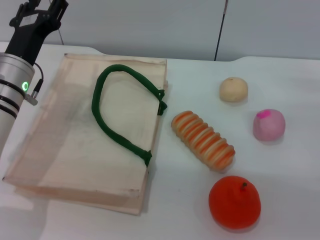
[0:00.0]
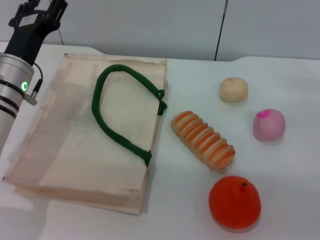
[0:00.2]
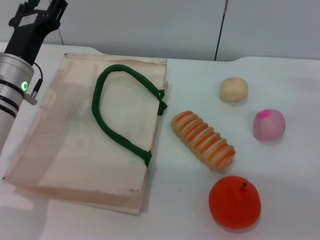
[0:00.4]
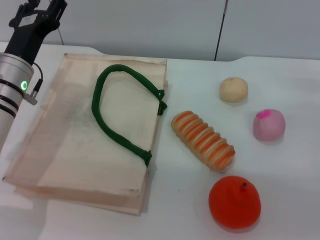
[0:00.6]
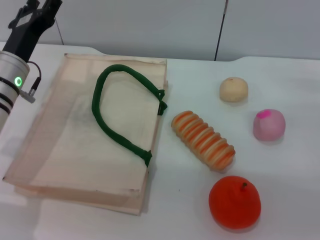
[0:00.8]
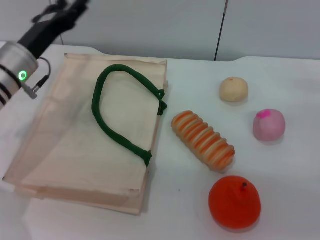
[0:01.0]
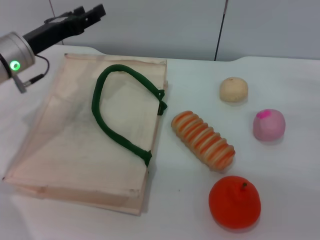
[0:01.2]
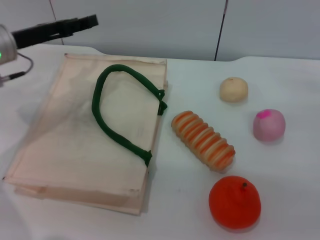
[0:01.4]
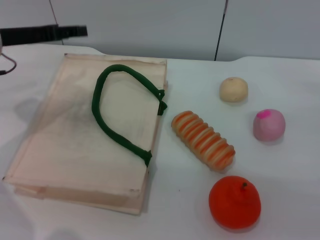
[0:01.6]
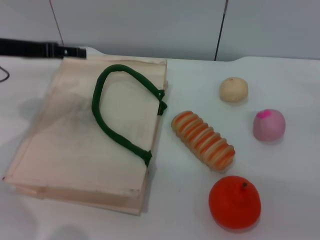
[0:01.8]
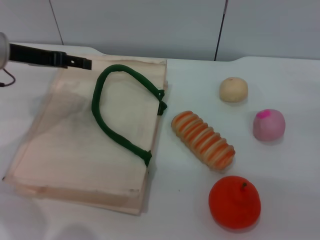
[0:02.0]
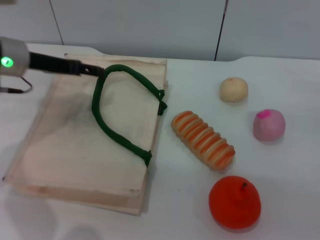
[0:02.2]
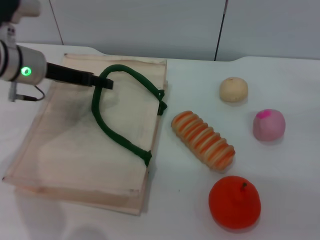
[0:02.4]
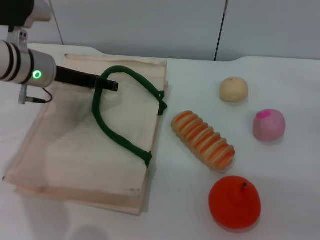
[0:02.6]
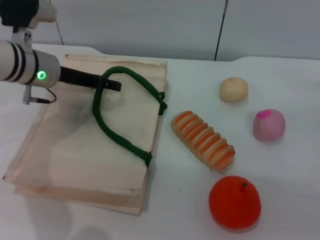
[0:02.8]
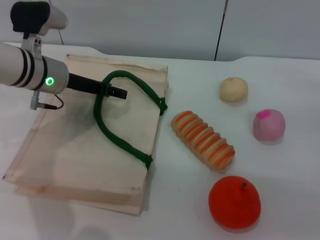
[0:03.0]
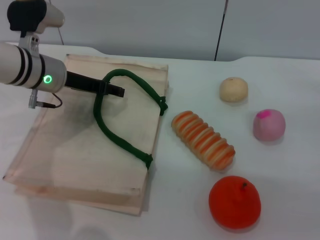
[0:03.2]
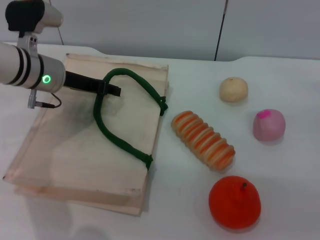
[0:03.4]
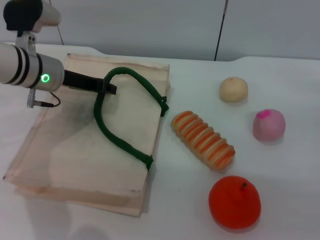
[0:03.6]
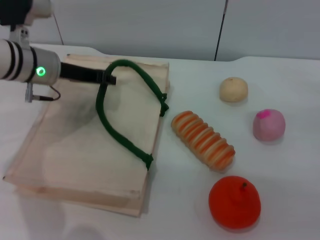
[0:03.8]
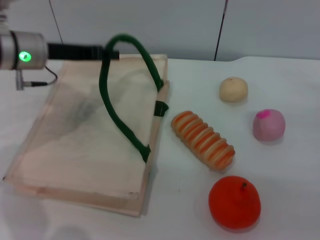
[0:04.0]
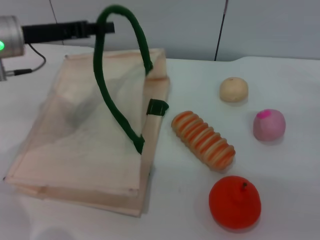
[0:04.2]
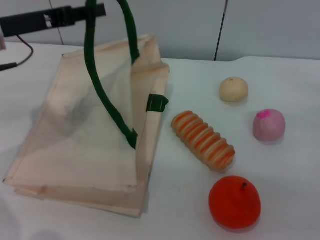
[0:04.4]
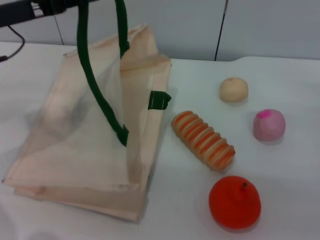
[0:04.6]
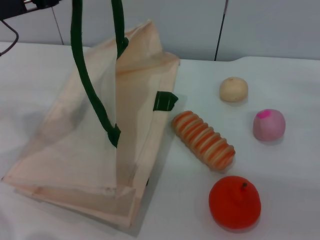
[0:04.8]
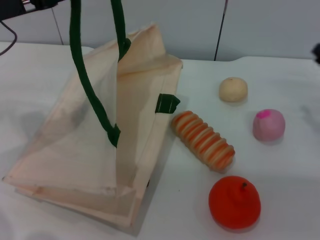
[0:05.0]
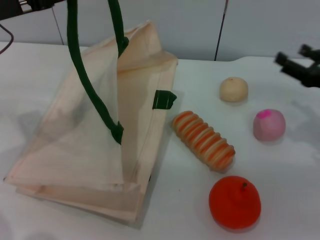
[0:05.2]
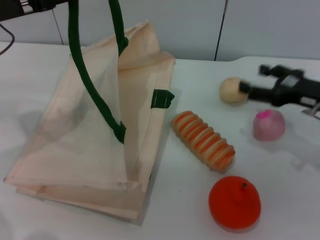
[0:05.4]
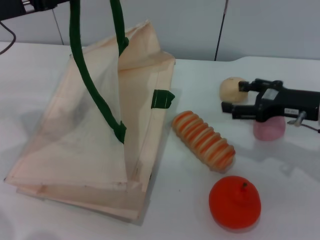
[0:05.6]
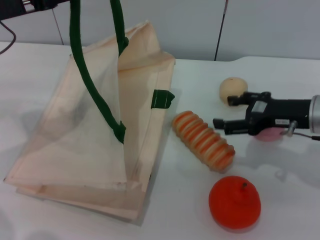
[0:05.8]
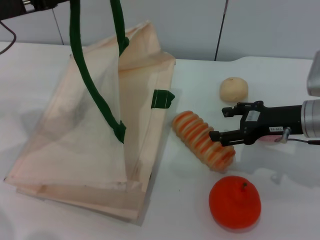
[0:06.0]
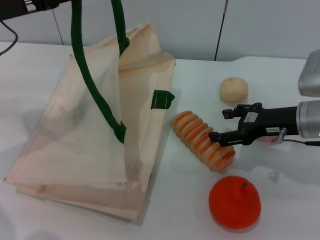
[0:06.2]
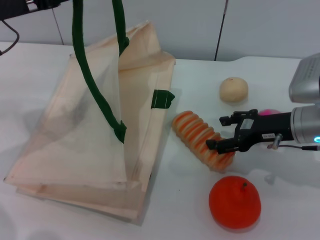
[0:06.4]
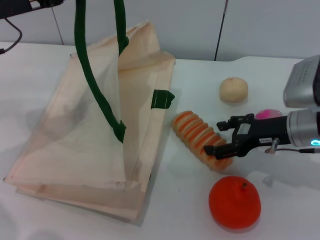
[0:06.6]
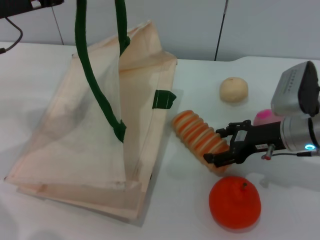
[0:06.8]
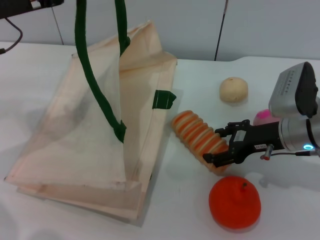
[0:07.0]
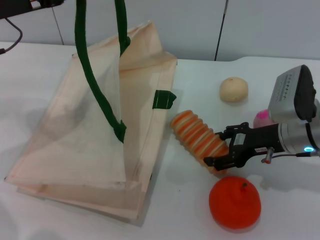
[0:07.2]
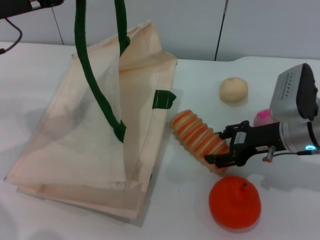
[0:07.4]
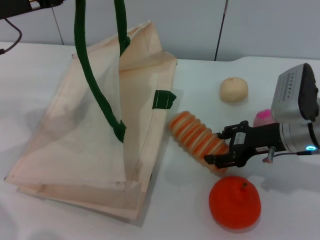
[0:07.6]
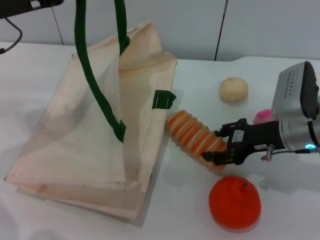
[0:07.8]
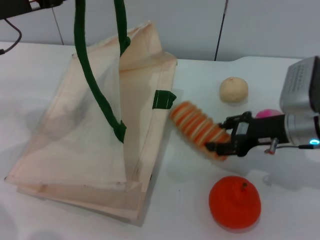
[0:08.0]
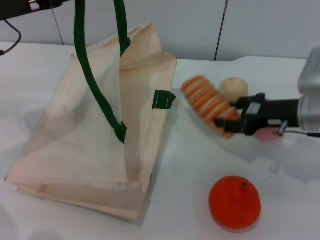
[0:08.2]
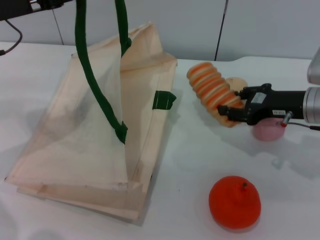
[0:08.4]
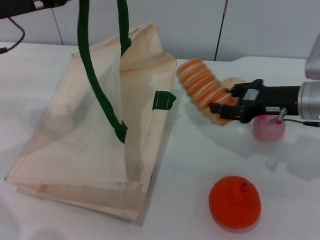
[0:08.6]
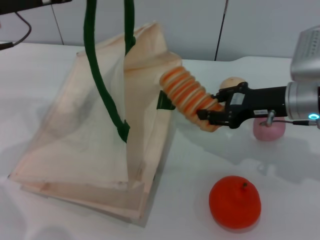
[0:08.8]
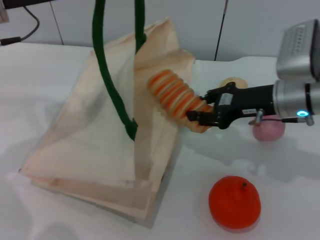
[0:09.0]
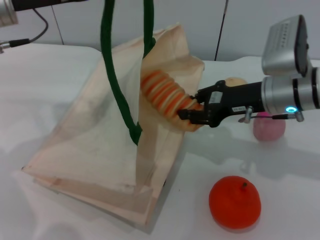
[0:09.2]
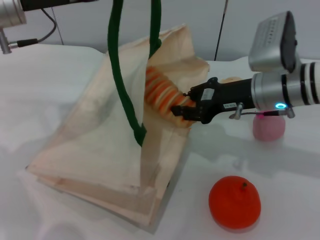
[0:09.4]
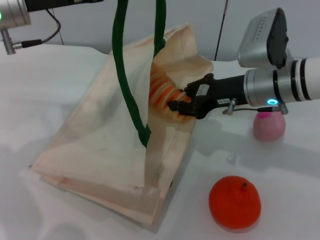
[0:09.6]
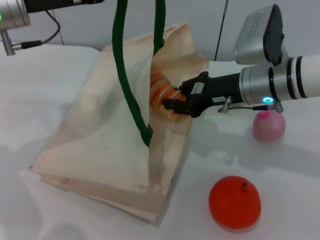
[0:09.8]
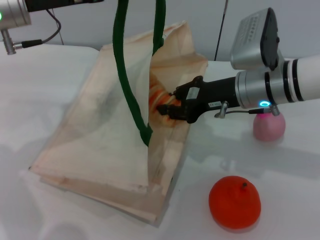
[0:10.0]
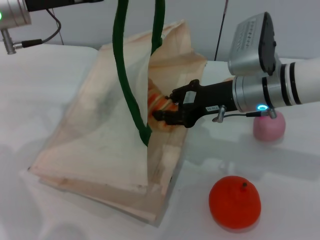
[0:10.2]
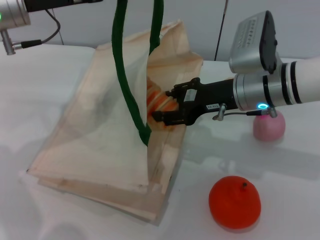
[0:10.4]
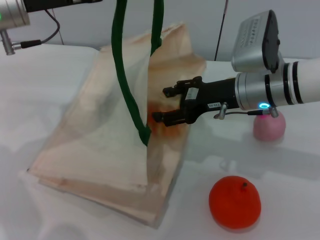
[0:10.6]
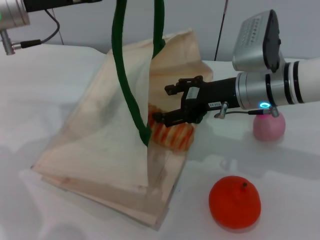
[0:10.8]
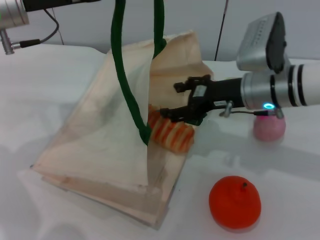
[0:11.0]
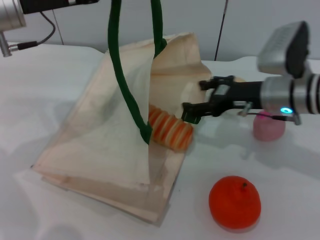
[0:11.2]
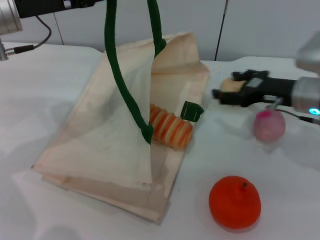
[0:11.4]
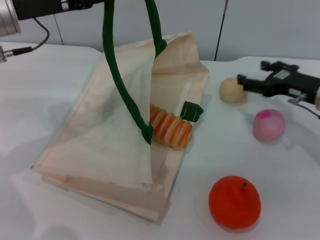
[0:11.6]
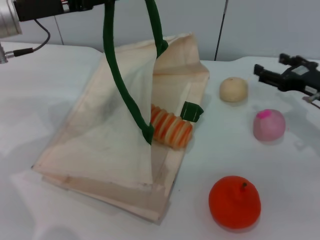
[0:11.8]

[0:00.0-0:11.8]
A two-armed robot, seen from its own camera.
Task of the whole recording: pick up the bread from the table and place it in the white handbag.
Step, 0:00.0 to 0:05.0: Lift the woven bag with the left gripper to open it.
Step, 0:05.2 to 0:08.0: Pick up the bread with the right gripper.
Step, 0:08.2 to 0:11.0: Place the bread into the woven bag with the right gripper.
0:00.0 to 0:01.4: The left gripper heads upward, covering roughly 5 cm.
0:01.4 to 0:03.0: The left gripper goes about 5 cm to the right.
0:03.0 to 0:04.4: The left gripper travels upward and to the left by roughly 10 cm, and closes.
0:04.4 to 0:06.0: The right gripper is displaced to the left by about 10 cm.
0:06.0 to 0:07.4: The grippers move only a little.
0:07.4 to 0:08.8: The right gripper closes up.
0:08.8 to 0:10.4: The right gripper shifts about 5 cm to the left.
0:10.4 to 0:11.8: The right gripper shifts roughly 15 cm to the right, and opens its fingers.

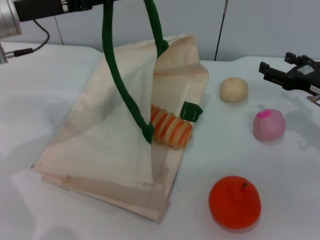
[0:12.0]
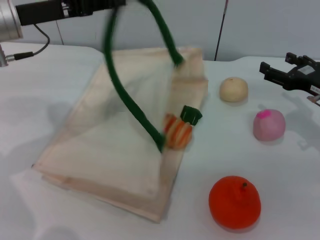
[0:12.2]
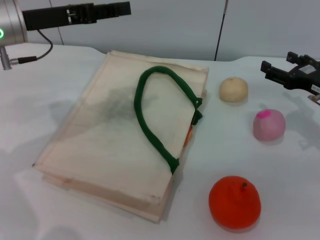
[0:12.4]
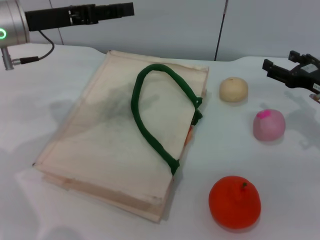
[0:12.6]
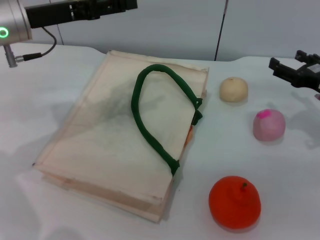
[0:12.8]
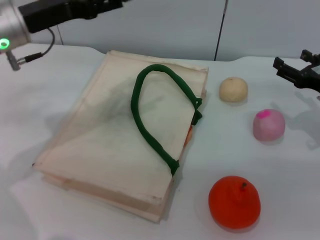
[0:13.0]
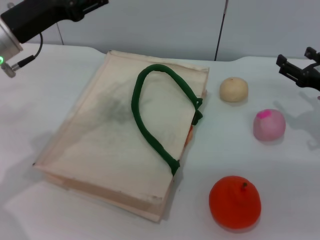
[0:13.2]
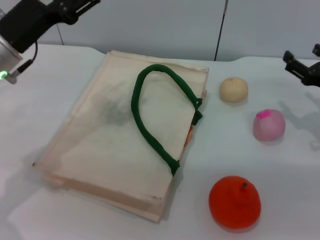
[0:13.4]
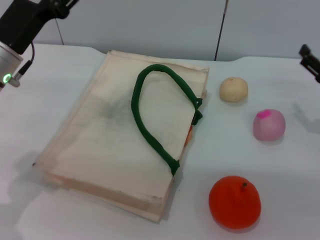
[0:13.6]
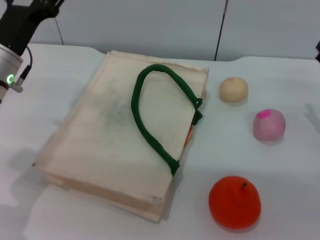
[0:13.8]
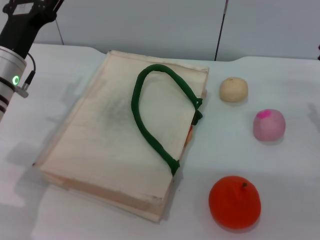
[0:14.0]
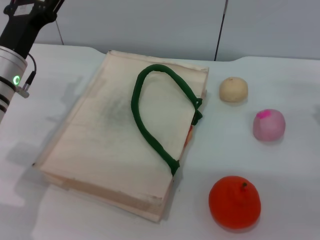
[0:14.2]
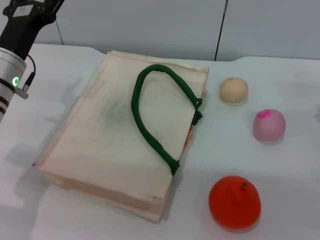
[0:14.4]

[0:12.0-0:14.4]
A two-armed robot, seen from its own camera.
Task of the whole recording: pick up the bread from the table and place it in the white handbag.
Step, 0:12.0 to 0:13.0: Lower the woven bag with the left gripper to close it.
0:12.0 to 0:13.2: The left gripper opens up.
0:13.2 to 0:14.4: The left gripper is displaced downward by some 5 cm.
